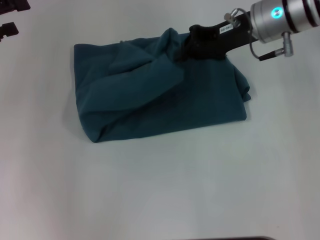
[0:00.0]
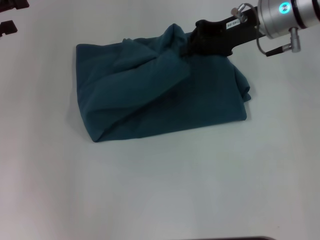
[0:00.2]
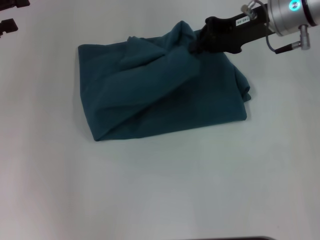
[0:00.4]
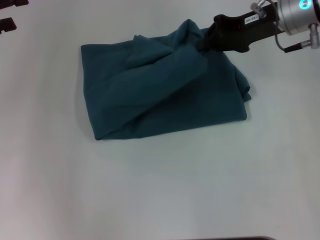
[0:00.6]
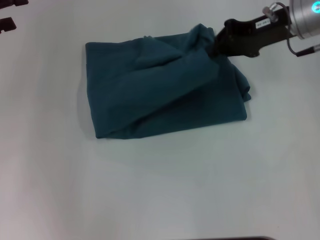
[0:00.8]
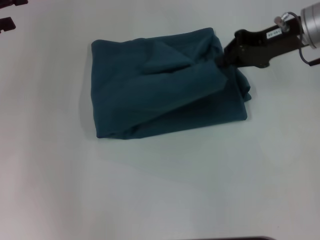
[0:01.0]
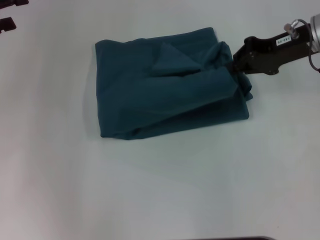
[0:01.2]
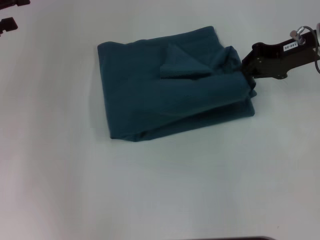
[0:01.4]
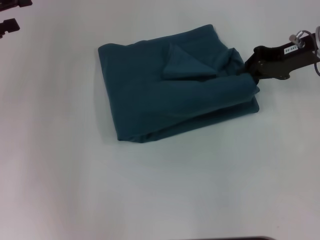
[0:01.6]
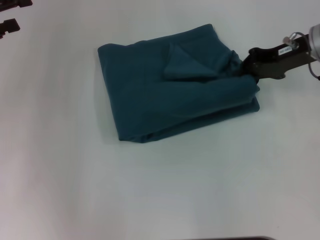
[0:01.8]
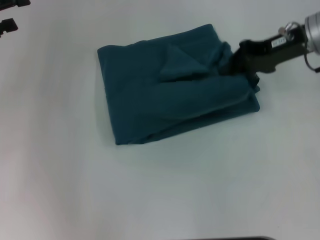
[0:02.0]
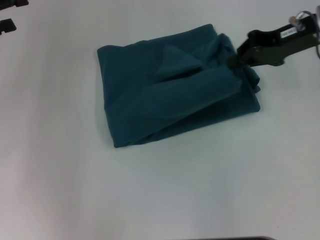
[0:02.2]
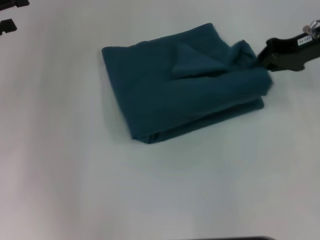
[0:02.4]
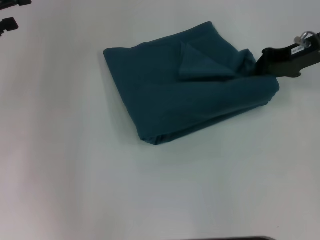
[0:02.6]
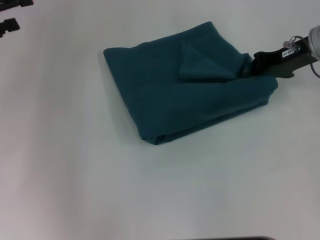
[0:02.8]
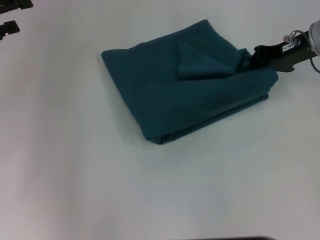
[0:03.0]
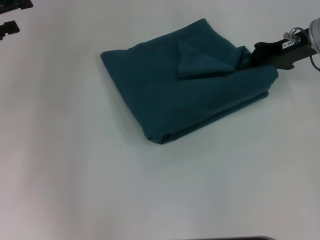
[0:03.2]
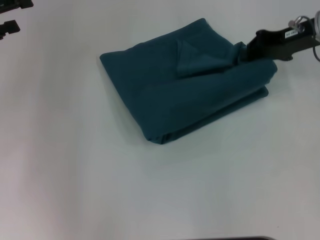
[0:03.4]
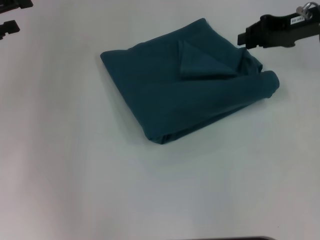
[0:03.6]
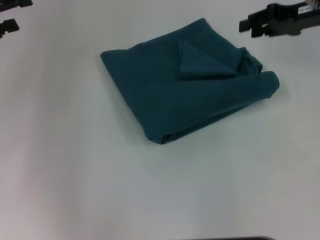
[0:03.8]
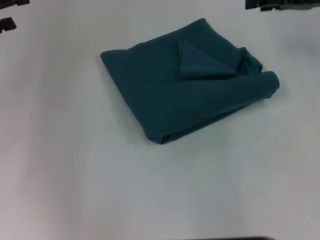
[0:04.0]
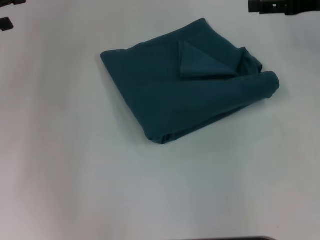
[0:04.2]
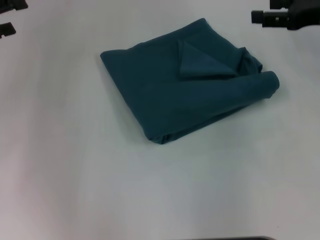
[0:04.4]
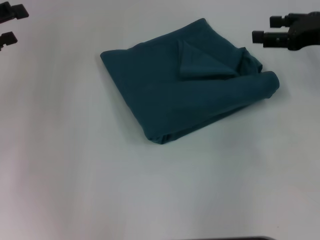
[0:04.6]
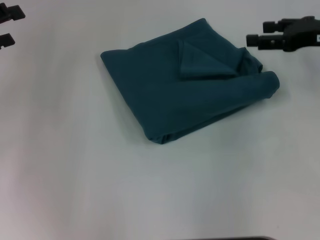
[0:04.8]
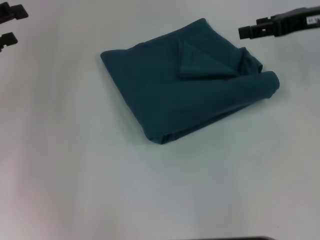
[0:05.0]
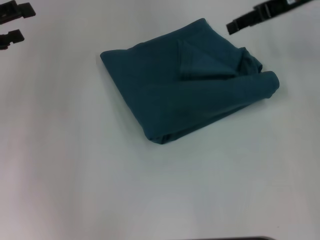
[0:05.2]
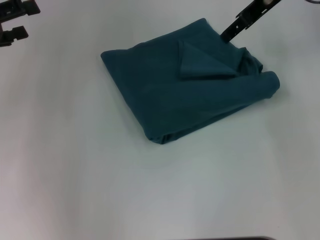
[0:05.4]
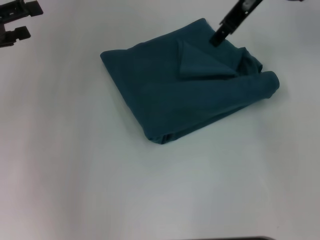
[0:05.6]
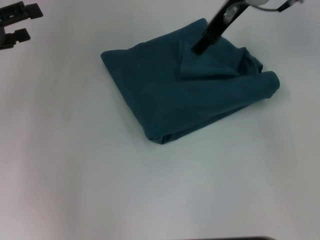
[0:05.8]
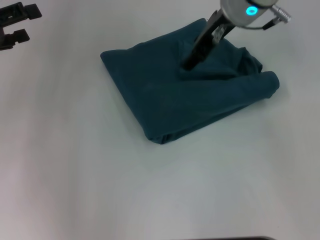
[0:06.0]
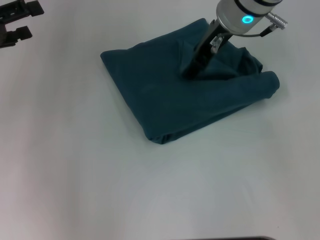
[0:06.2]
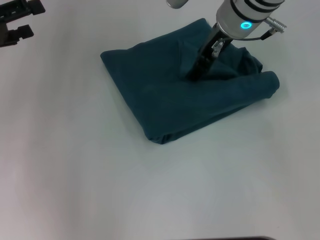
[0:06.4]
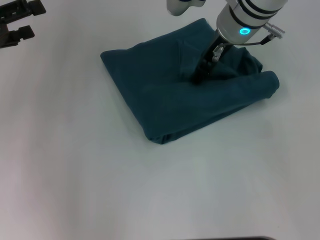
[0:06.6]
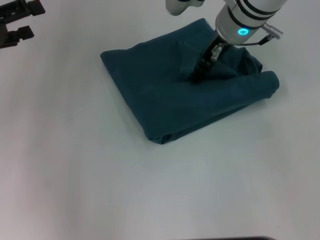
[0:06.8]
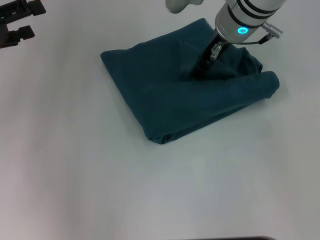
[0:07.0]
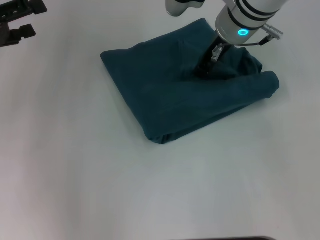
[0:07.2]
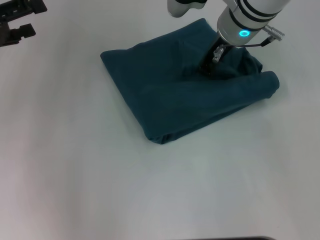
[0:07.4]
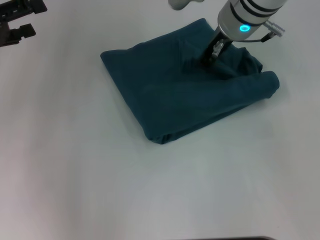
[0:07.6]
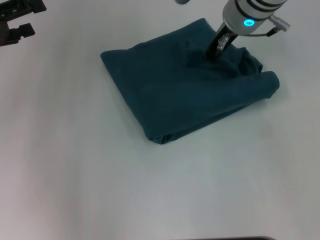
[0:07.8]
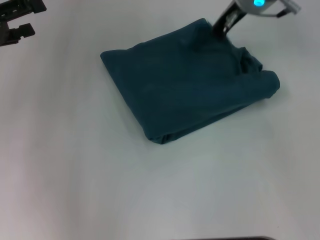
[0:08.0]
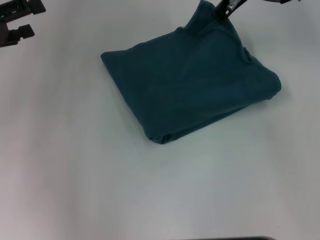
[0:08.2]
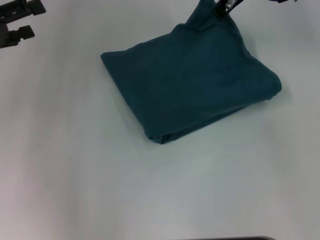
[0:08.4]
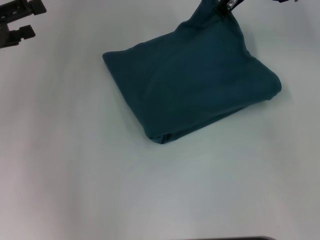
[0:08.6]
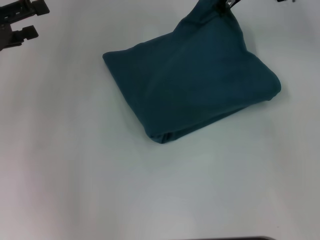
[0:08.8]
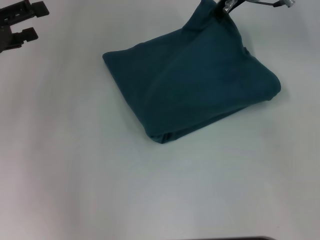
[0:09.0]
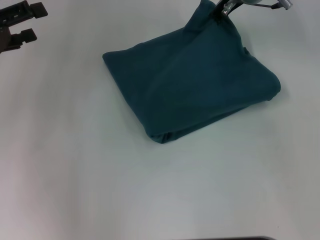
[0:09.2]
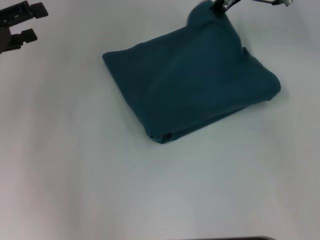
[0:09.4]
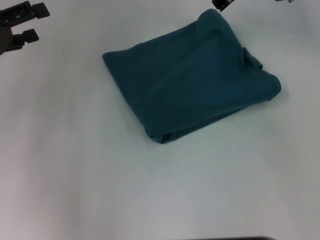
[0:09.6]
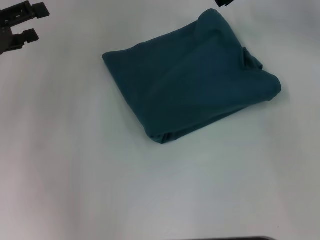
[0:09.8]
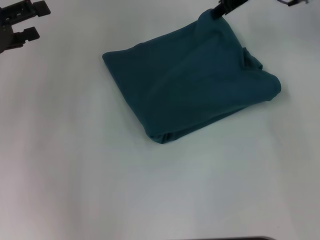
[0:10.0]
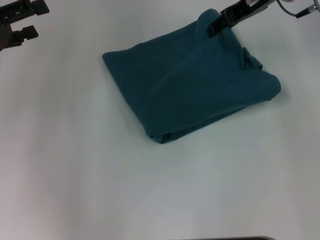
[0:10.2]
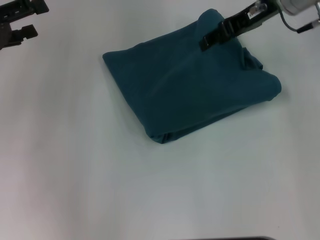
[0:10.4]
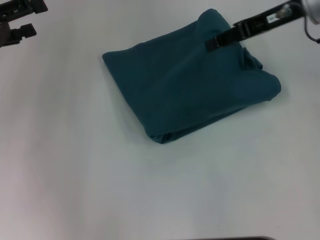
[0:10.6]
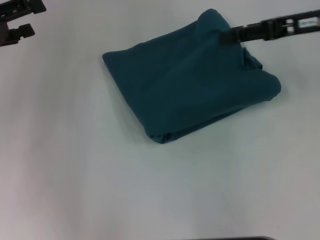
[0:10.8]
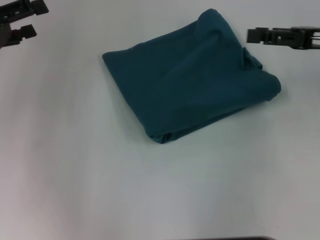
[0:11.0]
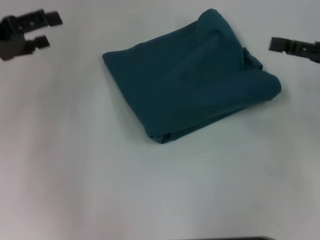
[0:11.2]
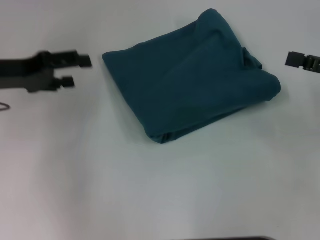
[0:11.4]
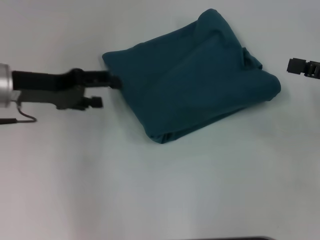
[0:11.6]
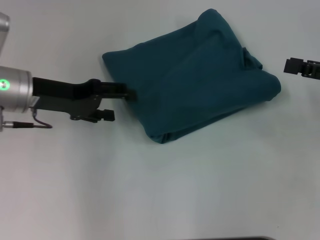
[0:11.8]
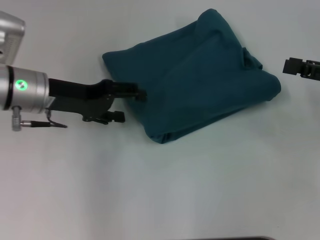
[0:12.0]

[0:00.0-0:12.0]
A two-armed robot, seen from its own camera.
0:00.0 to 0:01.6: The right gripper heads to the right, covering roughly 10 cm.
0:01.6 to 0:03.0: The grippers move only a little.
0:03.0 to 0:04.4: The right gripper moves some 5 cm, and opens up.
0:04.4 to 0:06.0: The right gripper heads to the left, covering some 20 cm.
0:06.0 to 0:07.6: The right gripper closes its fingers.
0:09.0 to 0:10.4: The right gripper moves to the right, approximately 5 cm, and opens.
0:10.4 to 0:12.0: The right gripper moves to the right, backward and downward, roughly 25 cm, while the left gripper travels to the right by about 10 cm.

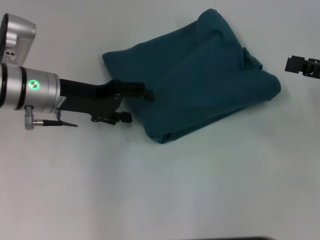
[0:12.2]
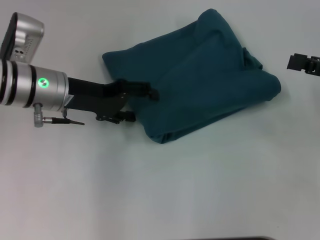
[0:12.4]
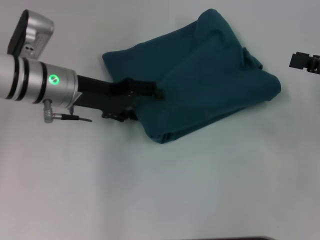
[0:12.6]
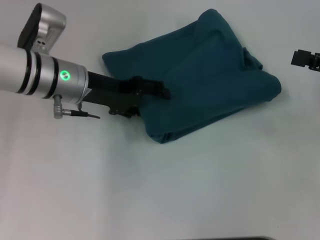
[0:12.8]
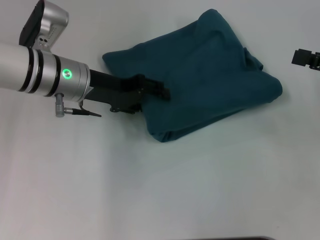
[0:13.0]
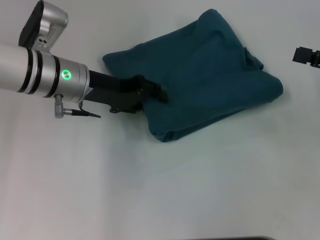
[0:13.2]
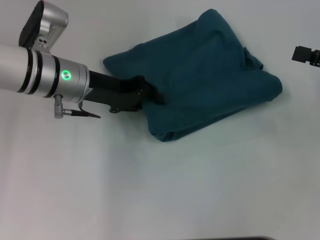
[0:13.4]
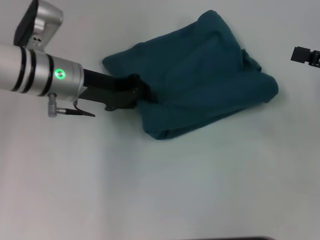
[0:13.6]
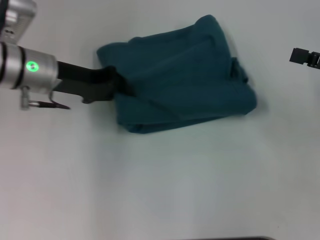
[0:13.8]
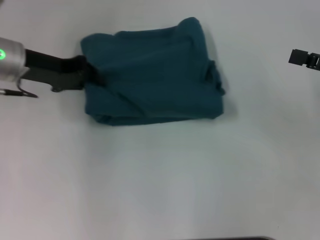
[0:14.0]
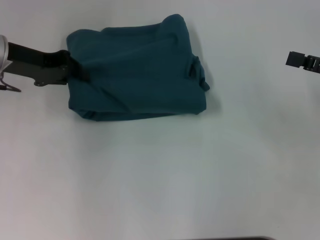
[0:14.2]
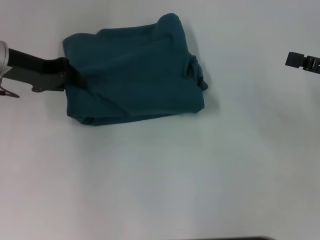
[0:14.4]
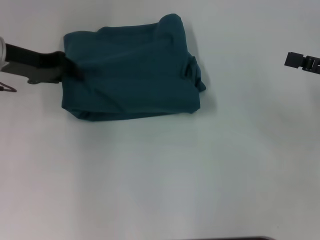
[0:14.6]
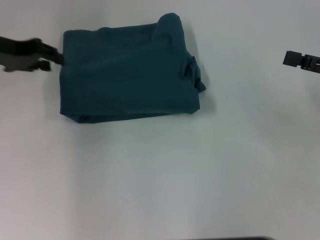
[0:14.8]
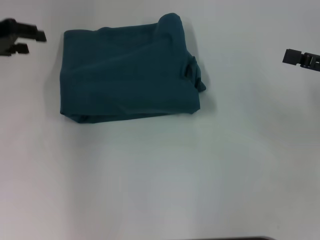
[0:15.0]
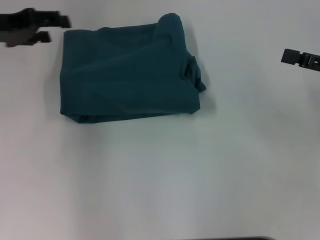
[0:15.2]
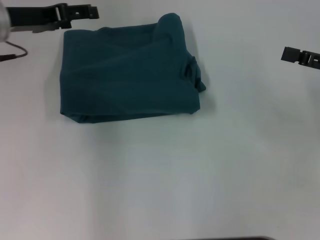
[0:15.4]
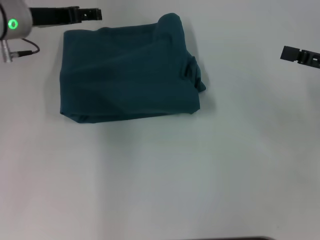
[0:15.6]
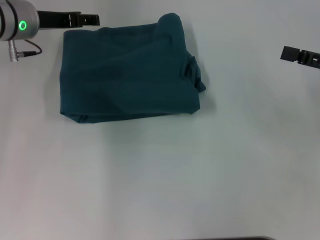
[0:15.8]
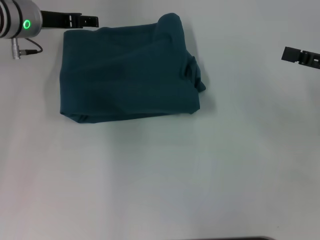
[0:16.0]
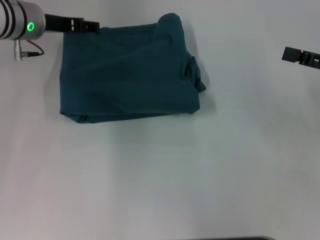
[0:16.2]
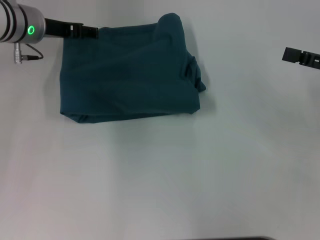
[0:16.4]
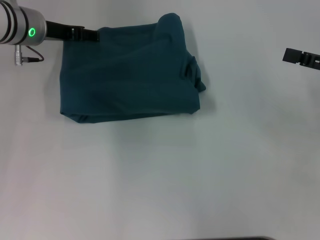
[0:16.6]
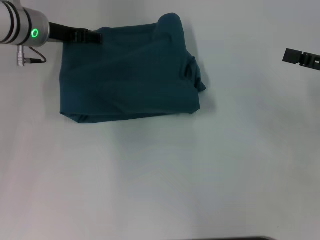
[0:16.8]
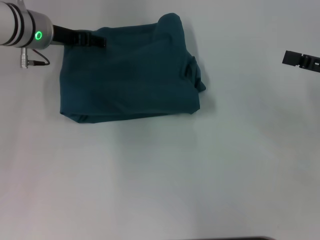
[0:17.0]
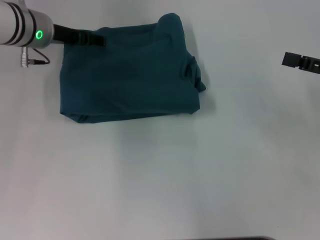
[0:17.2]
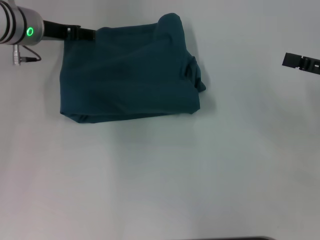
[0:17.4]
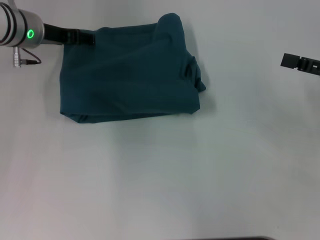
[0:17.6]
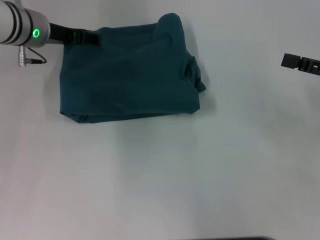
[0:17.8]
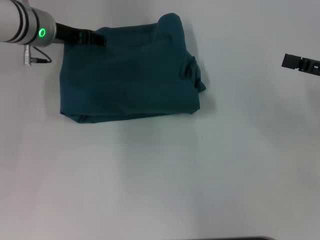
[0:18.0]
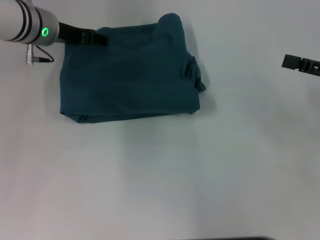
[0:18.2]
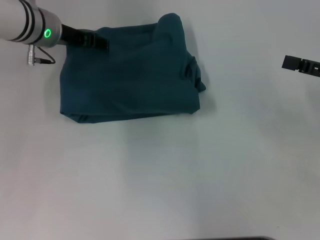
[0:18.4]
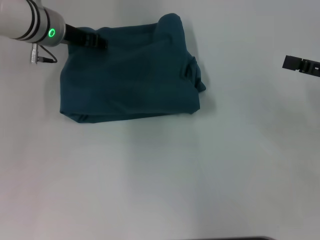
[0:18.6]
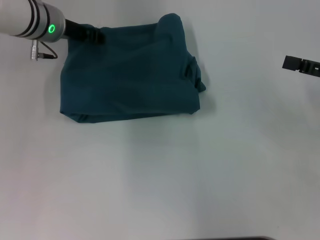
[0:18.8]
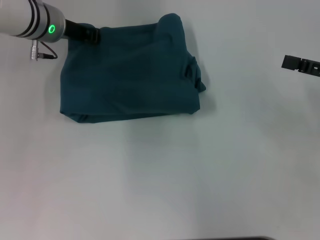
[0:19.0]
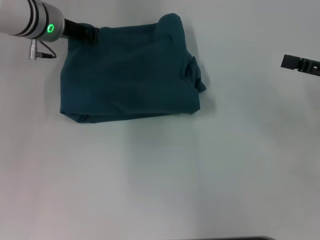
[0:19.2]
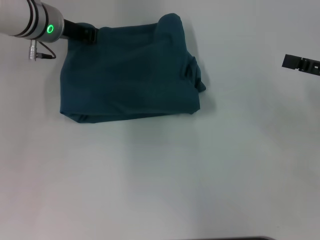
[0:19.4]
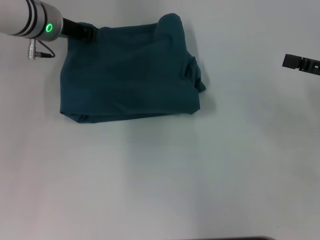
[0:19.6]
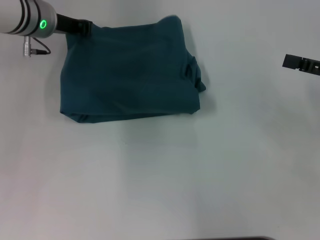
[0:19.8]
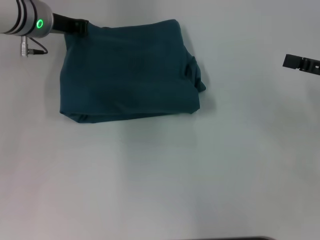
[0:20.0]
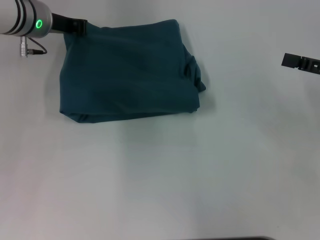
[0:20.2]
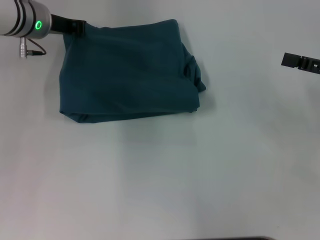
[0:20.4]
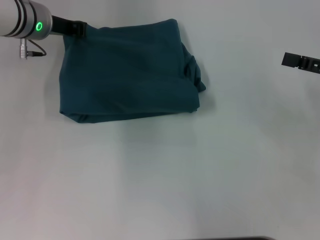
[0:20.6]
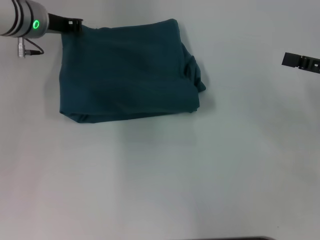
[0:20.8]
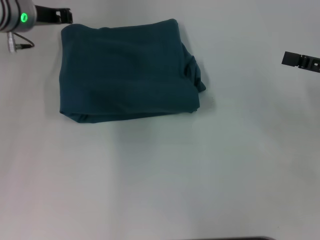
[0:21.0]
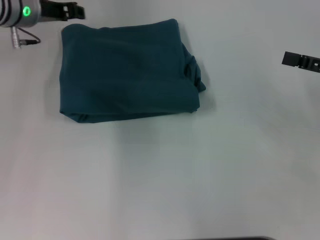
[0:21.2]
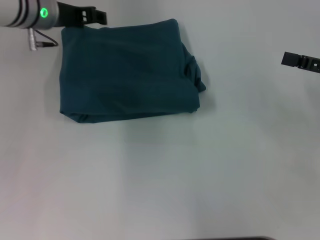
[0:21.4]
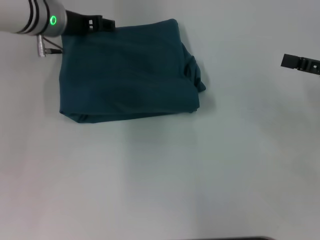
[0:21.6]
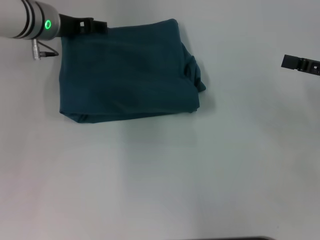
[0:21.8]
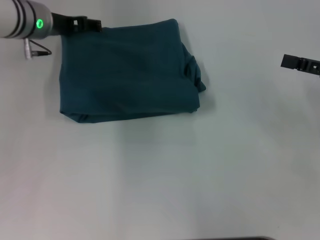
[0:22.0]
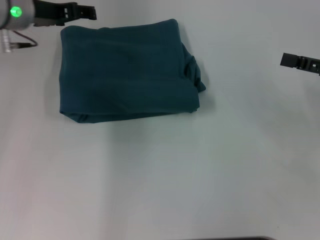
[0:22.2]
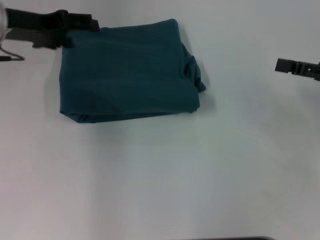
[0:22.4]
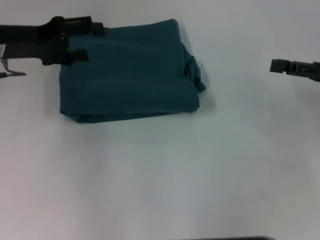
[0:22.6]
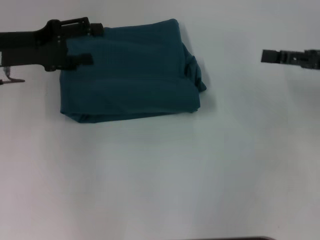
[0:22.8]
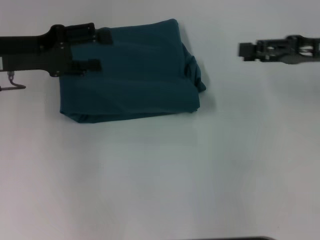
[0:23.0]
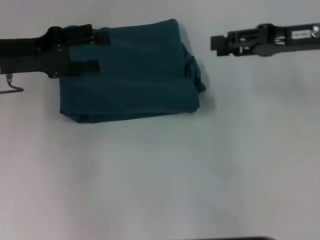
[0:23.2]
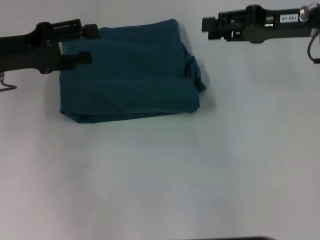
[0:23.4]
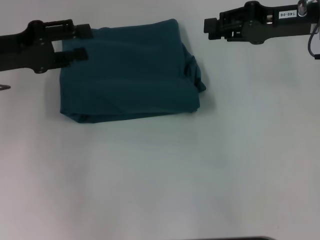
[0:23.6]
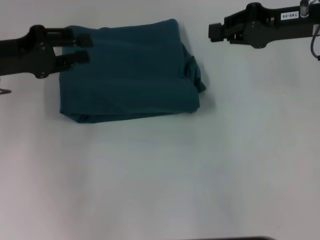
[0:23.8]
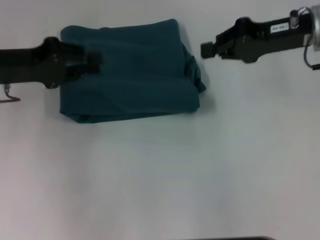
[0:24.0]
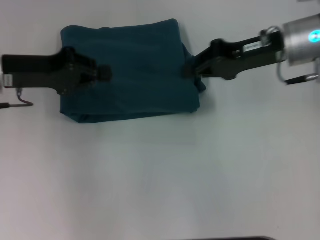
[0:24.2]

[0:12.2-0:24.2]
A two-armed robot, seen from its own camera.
0:12.2 to 0:13.8: The left gripper closes.
0:13.8 to 0:15.2: The left gripper shifts some 10 cm to the left and upward, and opens up.
0:15.2 to 0:16.6: The left gripper shifts some 10 cm to the right, forward and downward.
0:16.6 to 0:18.2: There are only small adjustments of the grippers.
0:18.2 to 0:19.8: The left gripper closes its fingers.
0:19.8 to 0:21.2: The grippers stay close to where they were, moving slightly.
0:21.2 to 0:22.6: The left gripper shifts some 10 cm backward and to the left, and opens its fingers.
0:22.6 to 0:24.2: The right gripper travels to the left and forward by approximately 15 cm, and closes up. The left gripper closes.
